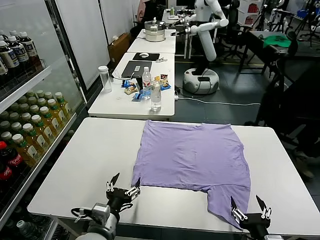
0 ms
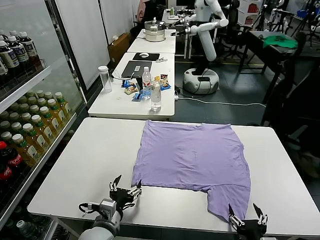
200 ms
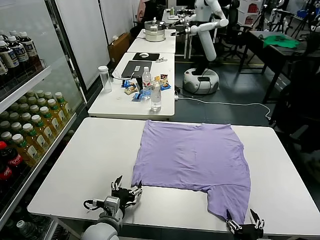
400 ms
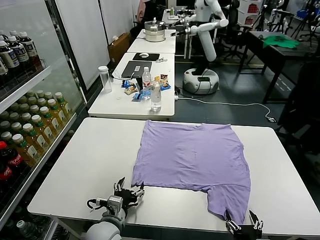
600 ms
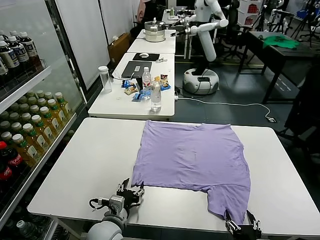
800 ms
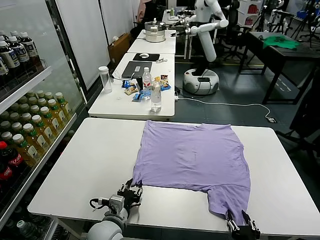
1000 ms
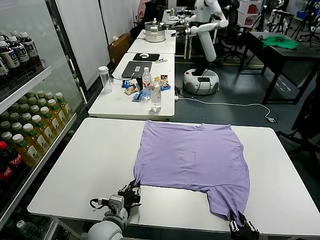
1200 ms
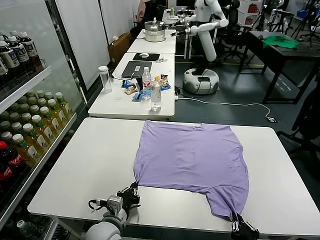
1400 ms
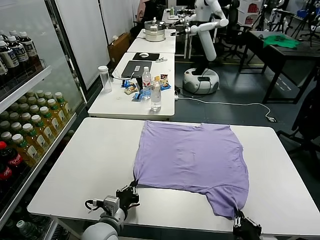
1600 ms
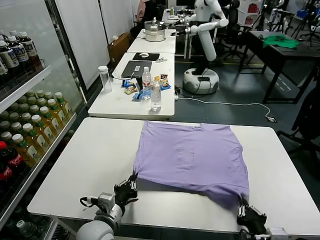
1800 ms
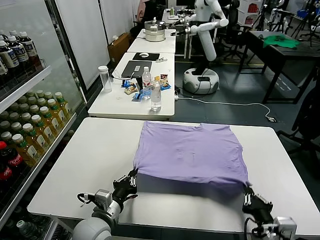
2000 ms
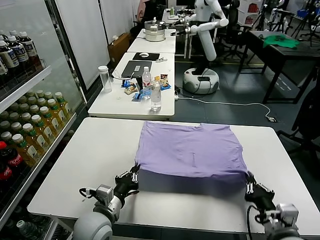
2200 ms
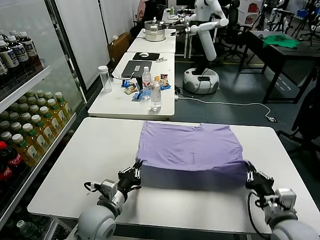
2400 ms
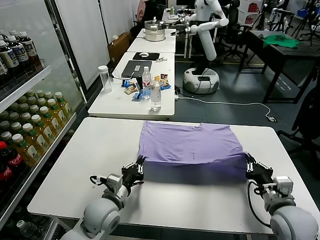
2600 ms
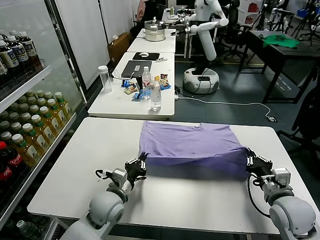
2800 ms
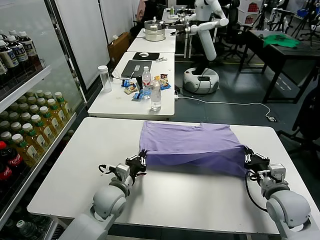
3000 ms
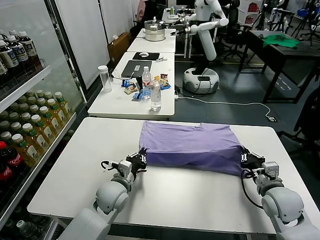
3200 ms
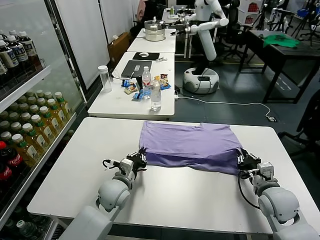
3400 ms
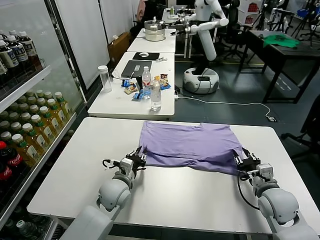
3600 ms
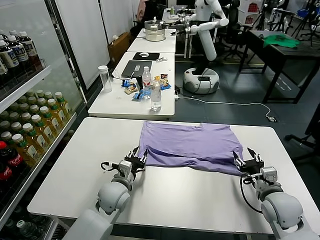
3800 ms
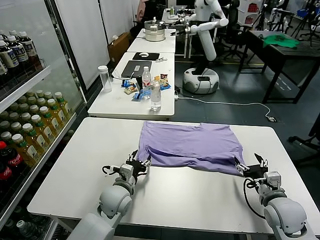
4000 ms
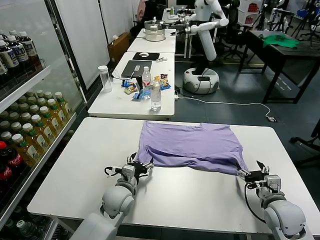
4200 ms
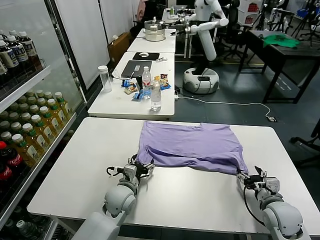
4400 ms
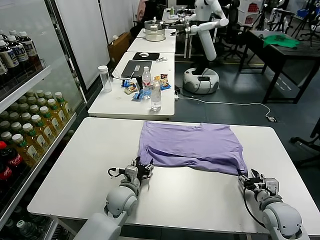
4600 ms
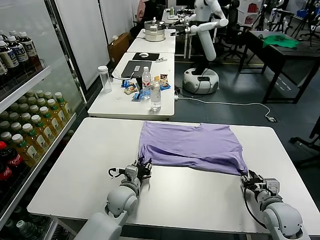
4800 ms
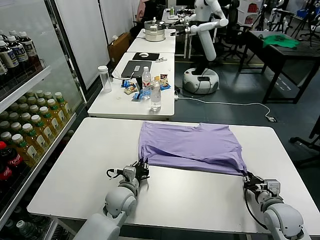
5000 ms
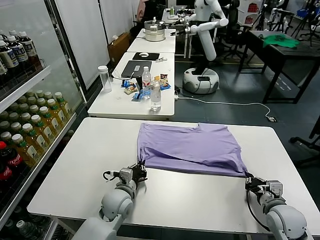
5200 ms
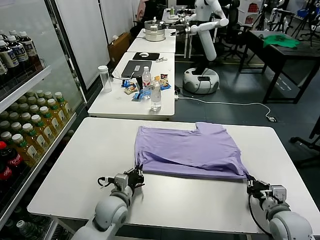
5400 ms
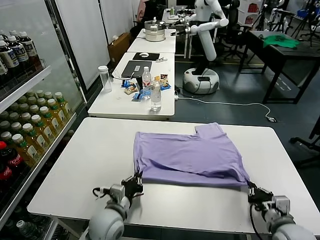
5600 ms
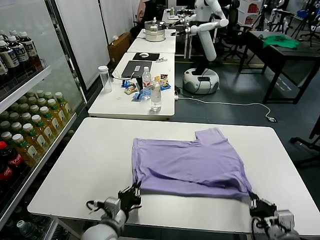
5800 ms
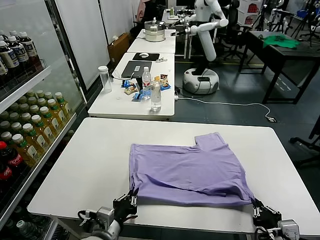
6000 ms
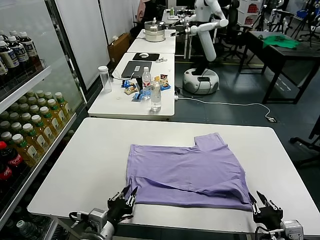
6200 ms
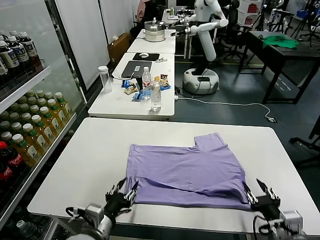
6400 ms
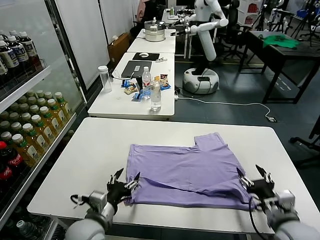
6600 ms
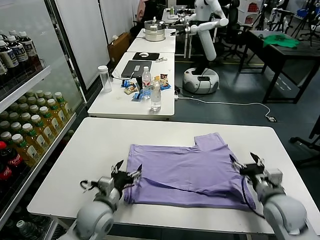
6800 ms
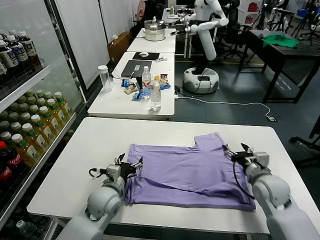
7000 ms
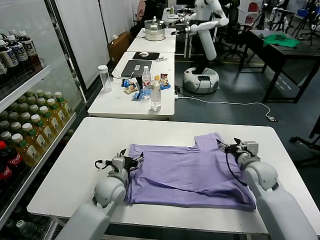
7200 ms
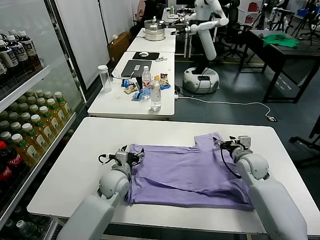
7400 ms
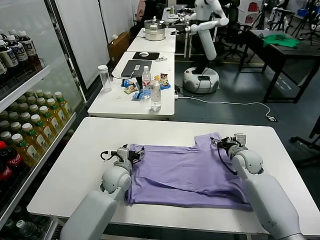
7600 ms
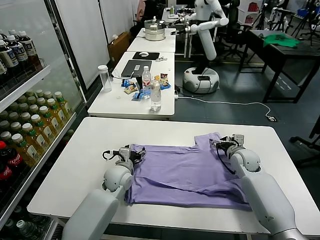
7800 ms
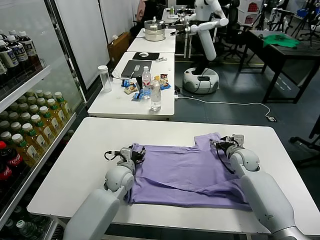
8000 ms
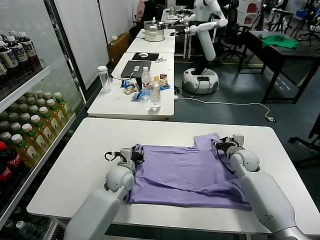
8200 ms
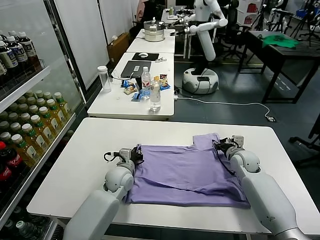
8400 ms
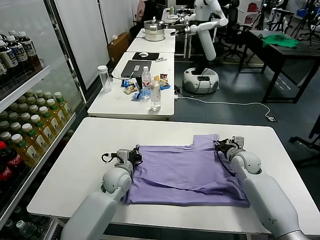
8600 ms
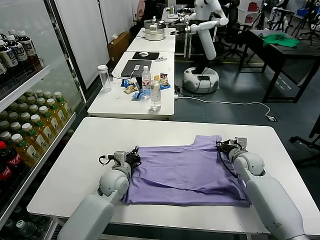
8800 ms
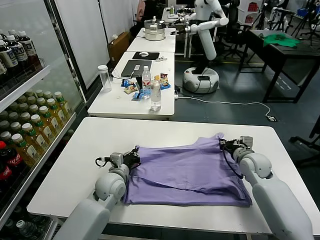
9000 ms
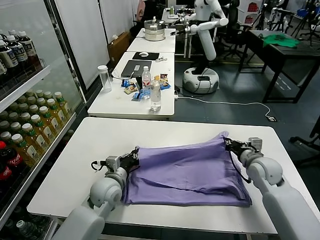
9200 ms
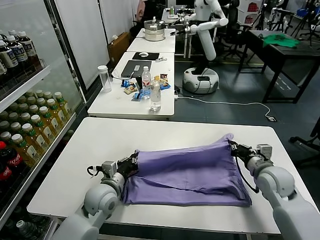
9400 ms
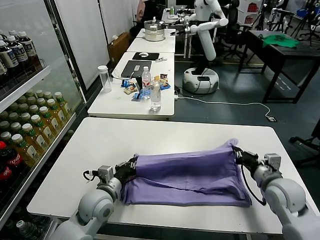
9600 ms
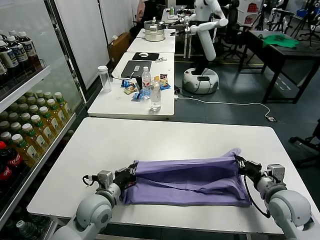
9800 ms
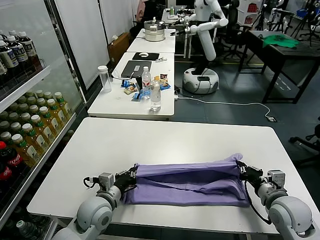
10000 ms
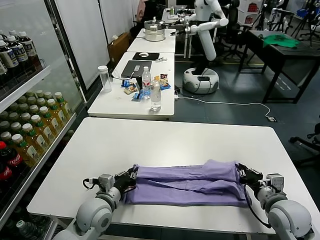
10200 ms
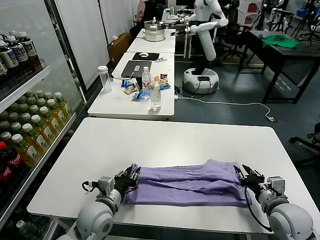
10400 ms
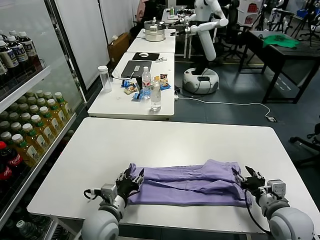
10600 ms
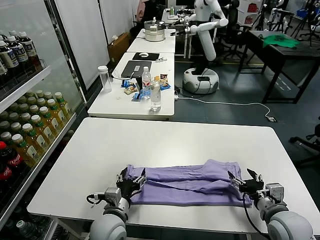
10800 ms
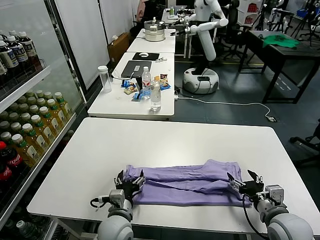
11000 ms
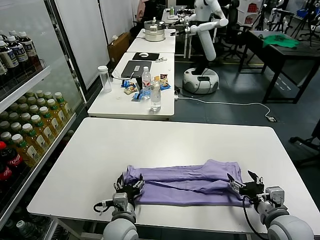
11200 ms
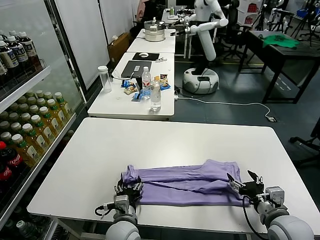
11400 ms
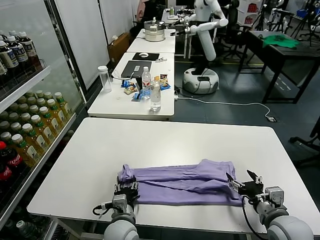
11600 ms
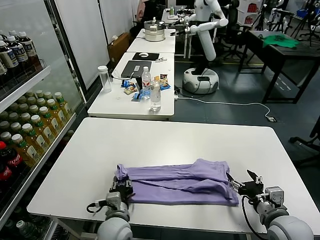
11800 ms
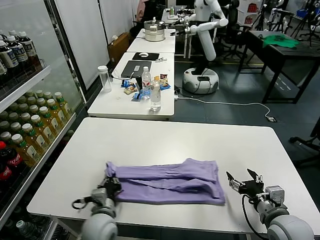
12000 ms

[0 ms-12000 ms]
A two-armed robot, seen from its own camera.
Task of the whole recording: fold and organize the clothes.
Step, 0 ms to 1400 ms: use both grippers simultaneously to clamp the lower edge of the clothing fabric.
Step, 1600 ms to 3800 ms: use both grippers to drag the lower edge of the fabric forward and fold it over the upper edge.
Step, 4000 ms to 6200 ms: Drag the clothes downward with both gripper.
Step, 6400 ms to 8600 ms: use both grippers simultaneously to clamp the upper edge of the clothing fabric.
Step, 8800 ms to 10600 ms: use both grippers to drag the upper edge of the fabric backward and fold it over the lower edge.
Step, 10800 ms to 11800 ms: use the left gripper to clamp the left edge of the fabric.
1600 ms to 3000 ms: The right gripper heads forward, covering some 20 cm. Meanwhile the left gripper shifts some 10 cm forward.
3000 ms to 4400 ms: The left gripper opens; the right gripper shifts approximately 5 cm downward, and opens its fingers.
4400 ms to 6000 ms: Both grippers move backward, about 15 cm. The right gripper closes, while the left gripper closes.
6000 ms to 7600 ms: The grippers both shift forward by approximately 30 cm. The left gripper opens, while the right gripper opens its fingers.
7600 ms to 9000 ms: The left gripper closes; the right gripper moves approximately 5 cm, and closes its fingers.
9000 ms to 10400 ms: The left gripper travels backward by approximately 10 cm, and opens its fingers, while the right gripper shifts roughly 20 cm backward, and opens up.
10400 ms to 12000 ms: The left gripper goes to the right and returns, roughly 10 cm each way, and opens, then closes once more; the right gripper opens up.

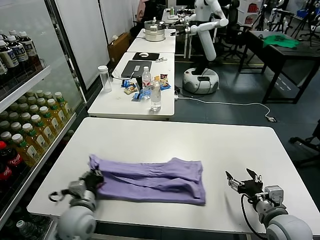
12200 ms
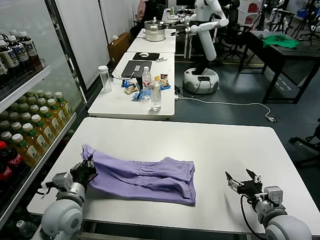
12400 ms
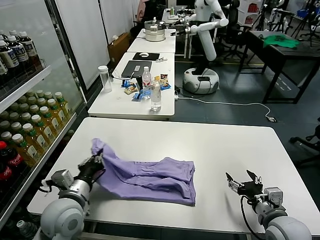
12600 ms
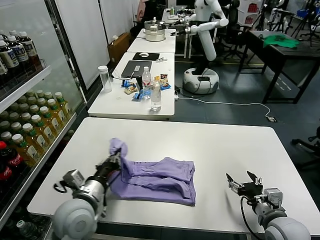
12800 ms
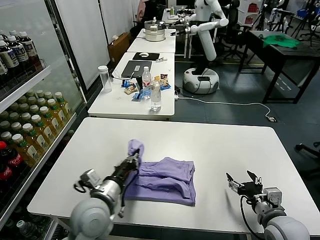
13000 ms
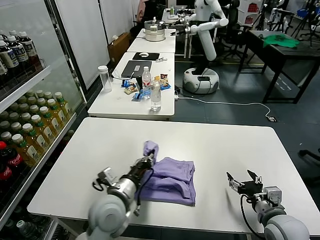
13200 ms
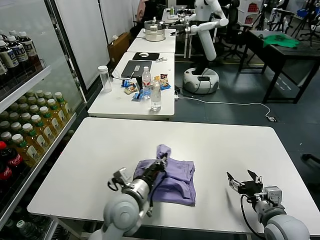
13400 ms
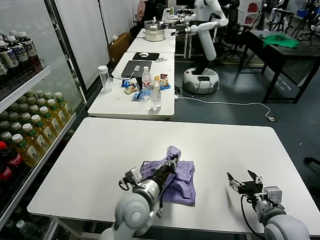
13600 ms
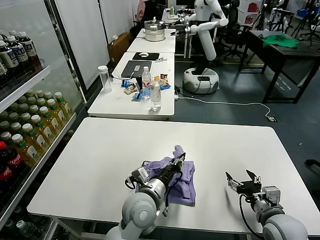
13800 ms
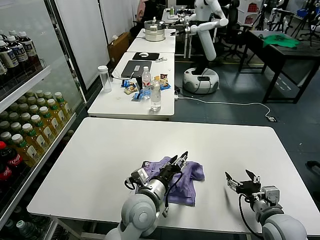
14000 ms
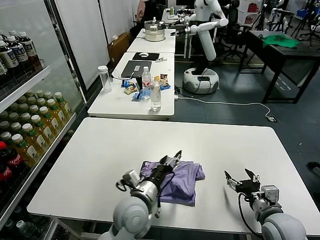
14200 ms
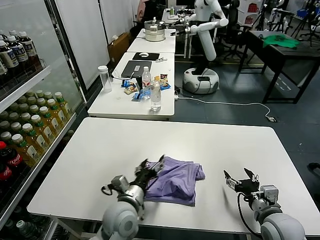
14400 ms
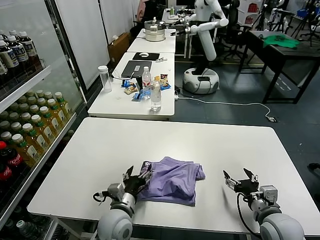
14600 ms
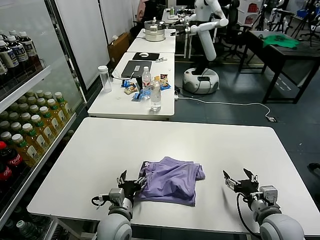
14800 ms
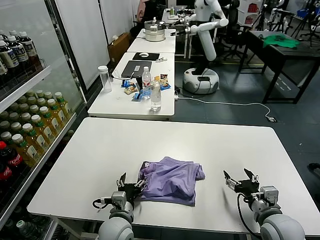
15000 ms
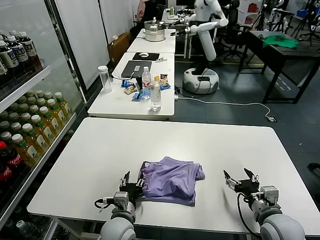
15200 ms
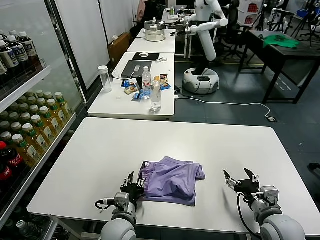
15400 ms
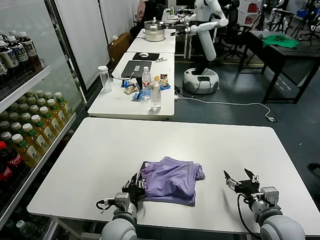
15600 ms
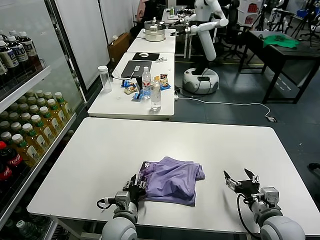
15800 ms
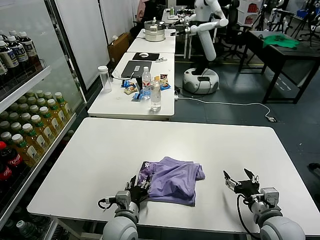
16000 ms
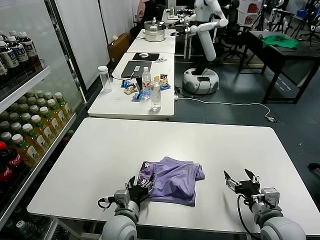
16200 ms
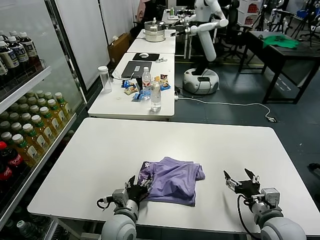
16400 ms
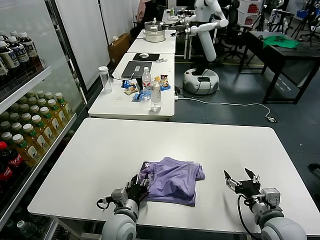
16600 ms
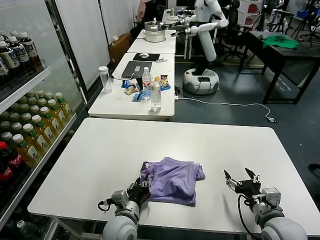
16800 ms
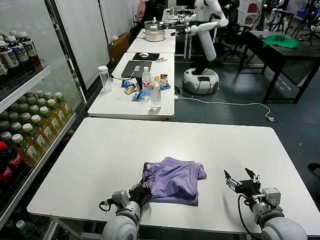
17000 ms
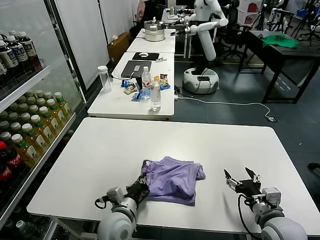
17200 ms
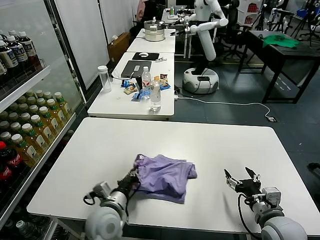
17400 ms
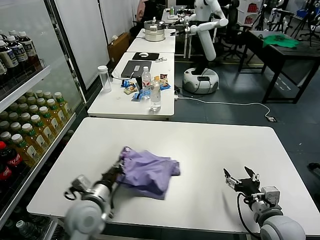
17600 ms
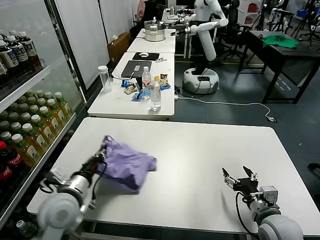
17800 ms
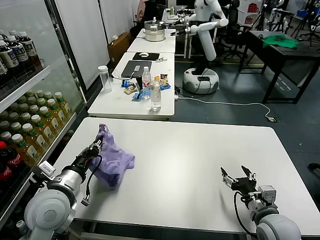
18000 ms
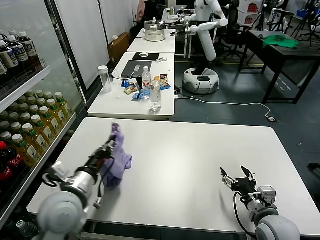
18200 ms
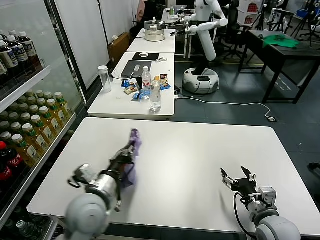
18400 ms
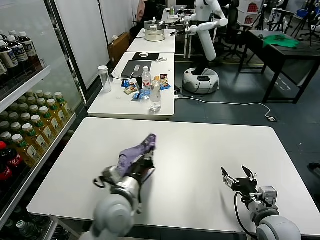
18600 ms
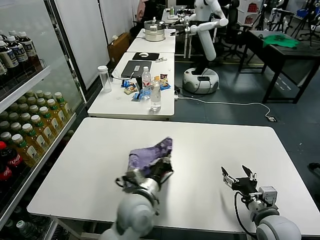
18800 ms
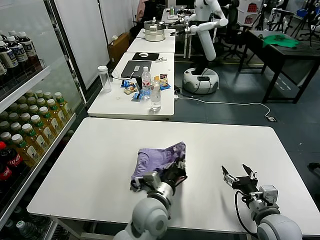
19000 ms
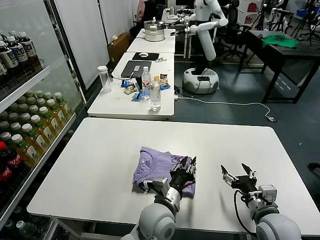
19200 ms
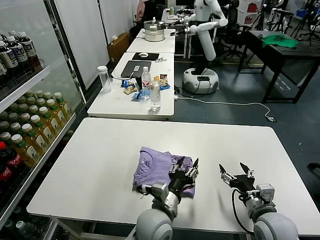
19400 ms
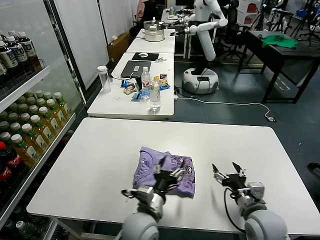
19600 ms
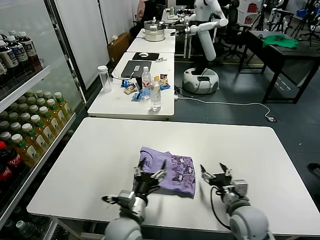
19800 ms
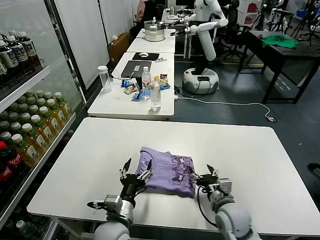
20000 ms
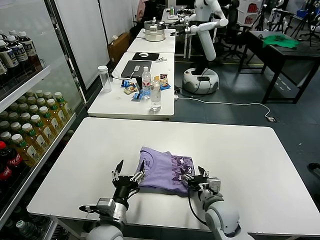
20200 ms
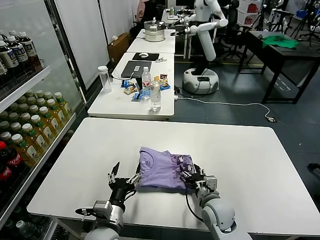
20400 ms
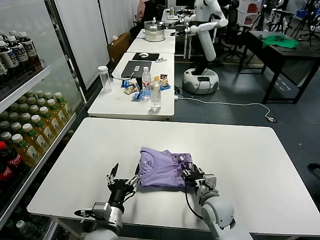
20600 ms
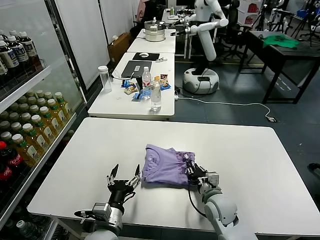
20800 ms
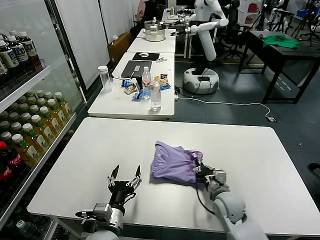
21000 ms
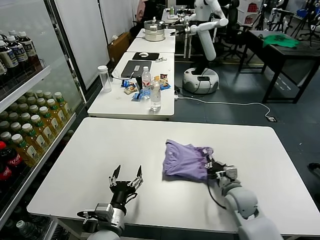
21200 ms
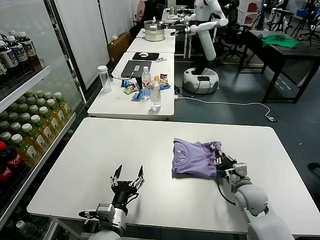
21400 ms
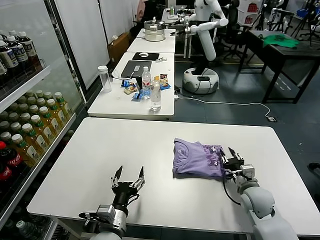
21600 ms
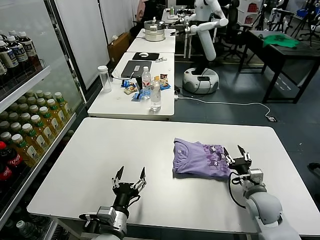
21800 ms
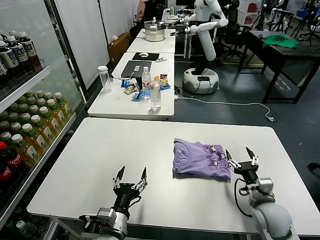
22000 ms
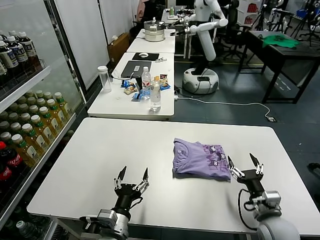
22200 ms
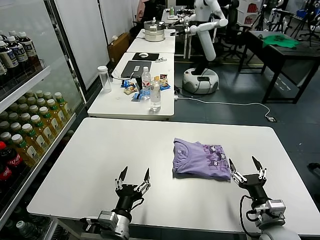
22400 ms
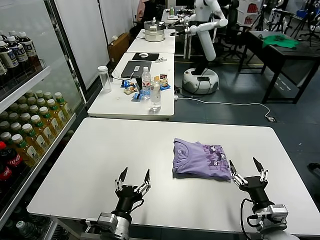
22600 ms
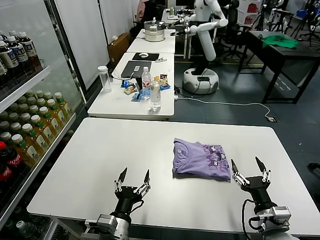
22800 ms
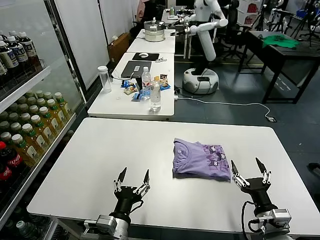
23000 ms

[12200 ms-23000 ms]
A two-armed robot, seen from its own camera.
Task of the whole recording: fold and organize the clothes.
Step, 12200 ms to 14200 ms: use the left gripper to drag the left edge of the fabric to the left and folds it over the right edge.
Step, 14400 ms to 19400 ms: Flip the folded clothes over with left gripper.
Step, 19600 ms to 21600 ms: Drag the clothes to the center of the table.
12200 ms to 13800 ms: The left gripper shifts some 20 cm to the right, and opens its fingers.
13800 ms to 15200 ms: The left gripper travels downward and to the left by some 10 cm.
15200 ms to 16800 ms: The grippers move only a little.
16800 ms to 18400 ms: The left gripper moves upward and to the left, roughly 15 cm, and closes up.
18400 ms to 20000 ms: The left gripper travels downward and to the right by about 10 cm, and opens; the right gripper is displaced to the left and forward by approximately 10 cm.
20000 ms to 21400 ms: The right gripper shifts some 10 cm forward and to the right, and closes its fingers.
21400 ms to 23000 ms: The right gripper heads backward, covering some 15 cm, and opens.
